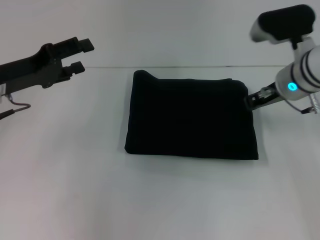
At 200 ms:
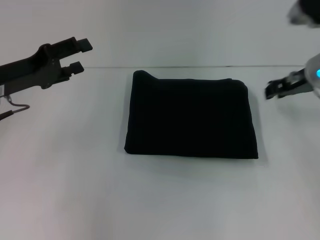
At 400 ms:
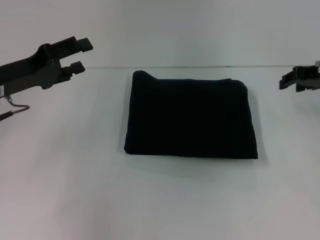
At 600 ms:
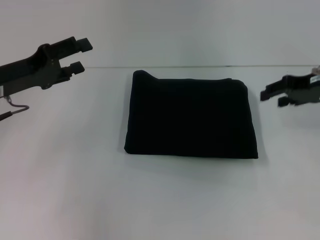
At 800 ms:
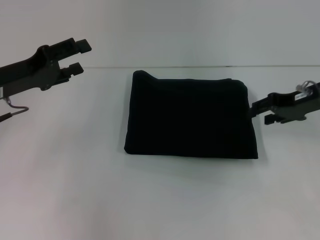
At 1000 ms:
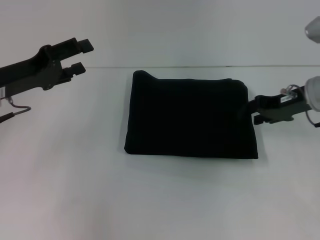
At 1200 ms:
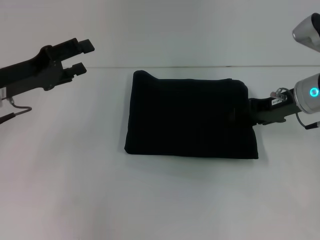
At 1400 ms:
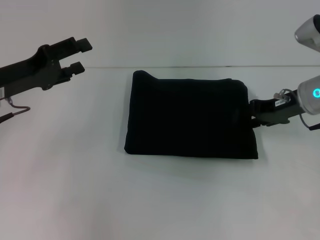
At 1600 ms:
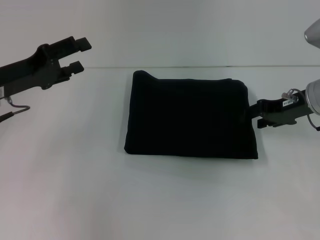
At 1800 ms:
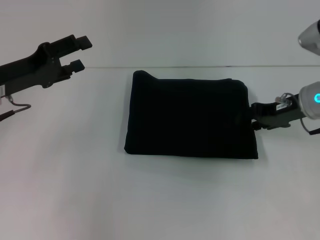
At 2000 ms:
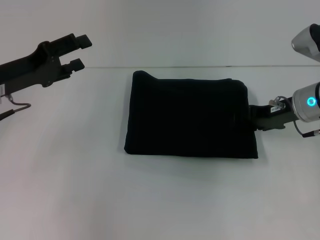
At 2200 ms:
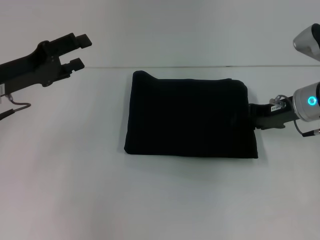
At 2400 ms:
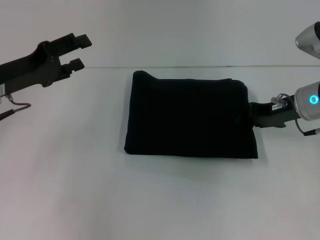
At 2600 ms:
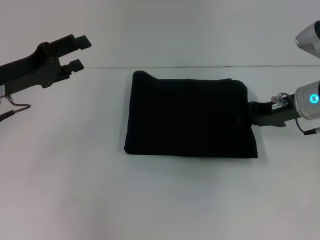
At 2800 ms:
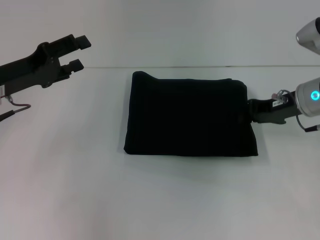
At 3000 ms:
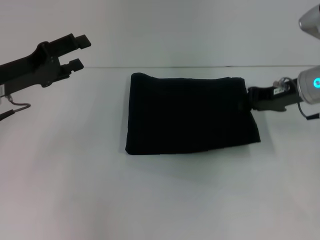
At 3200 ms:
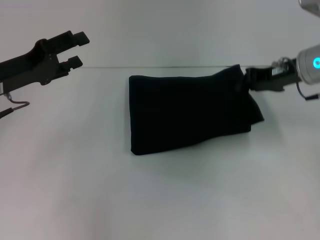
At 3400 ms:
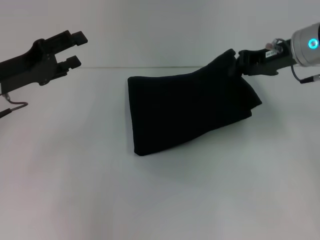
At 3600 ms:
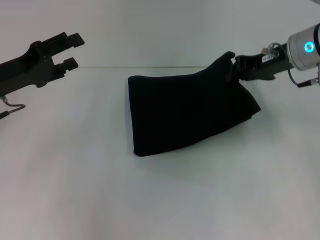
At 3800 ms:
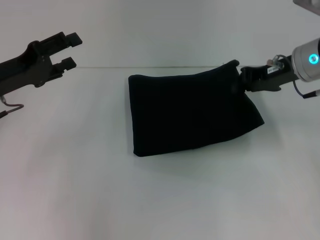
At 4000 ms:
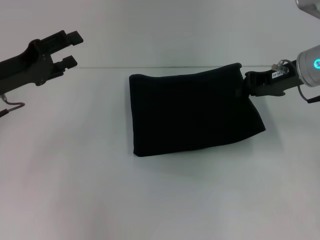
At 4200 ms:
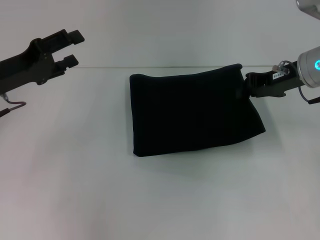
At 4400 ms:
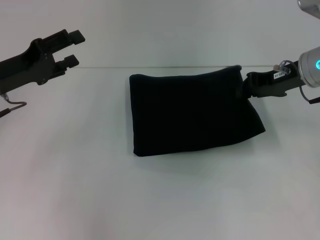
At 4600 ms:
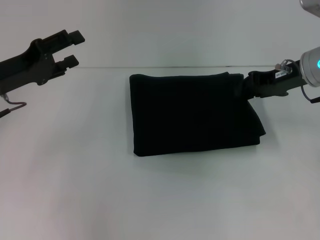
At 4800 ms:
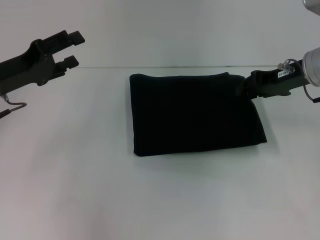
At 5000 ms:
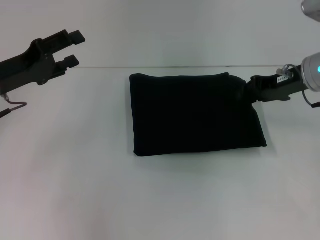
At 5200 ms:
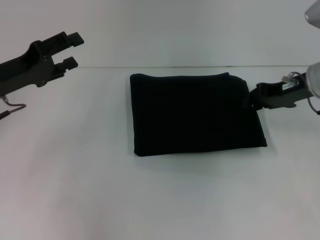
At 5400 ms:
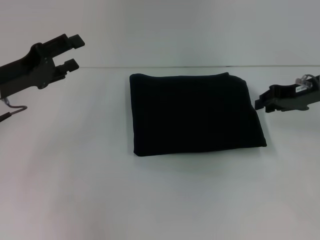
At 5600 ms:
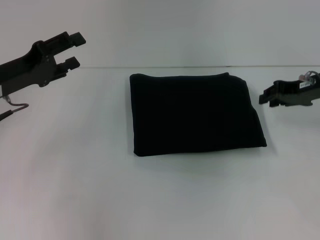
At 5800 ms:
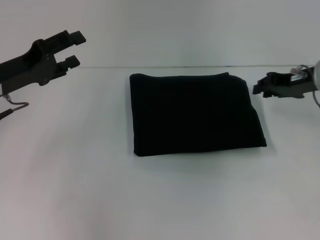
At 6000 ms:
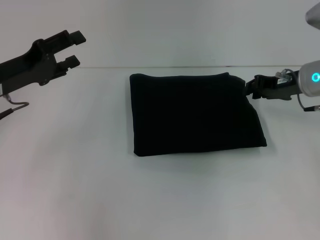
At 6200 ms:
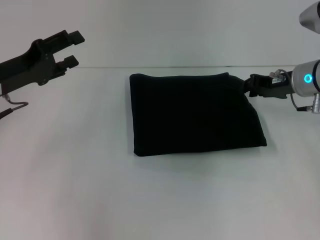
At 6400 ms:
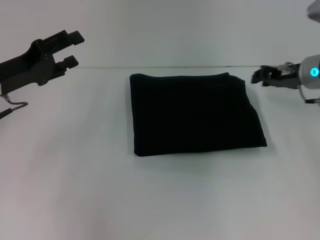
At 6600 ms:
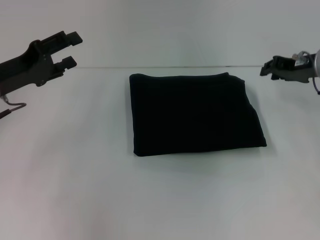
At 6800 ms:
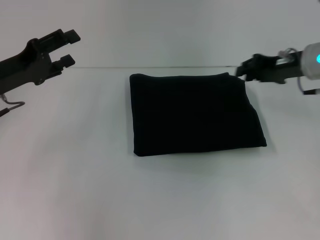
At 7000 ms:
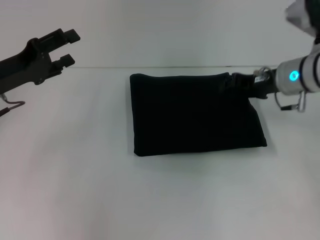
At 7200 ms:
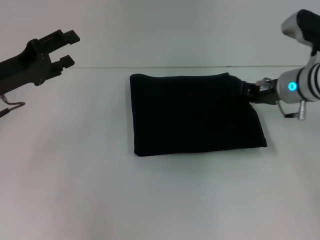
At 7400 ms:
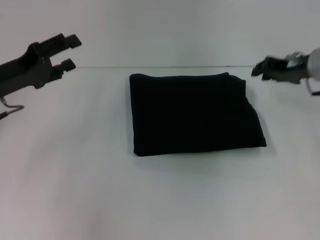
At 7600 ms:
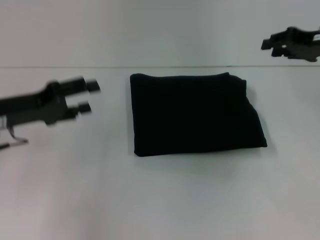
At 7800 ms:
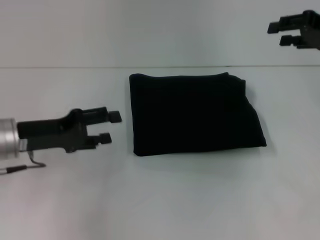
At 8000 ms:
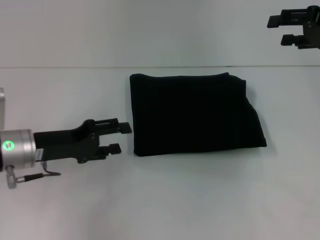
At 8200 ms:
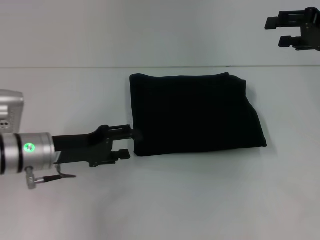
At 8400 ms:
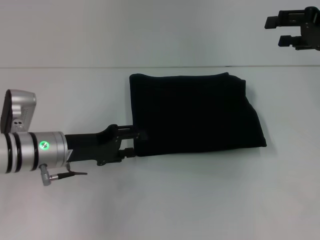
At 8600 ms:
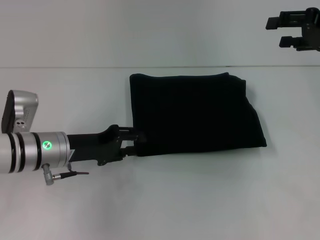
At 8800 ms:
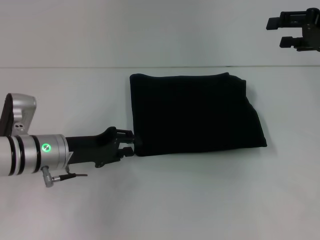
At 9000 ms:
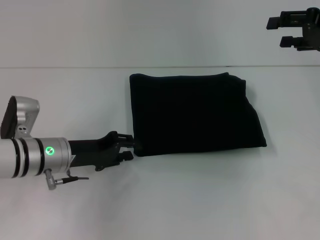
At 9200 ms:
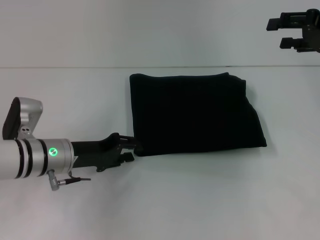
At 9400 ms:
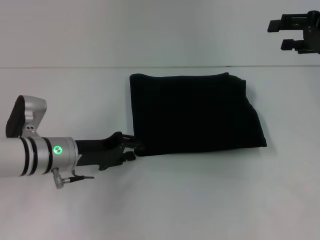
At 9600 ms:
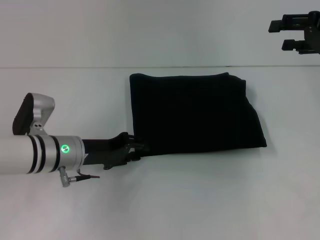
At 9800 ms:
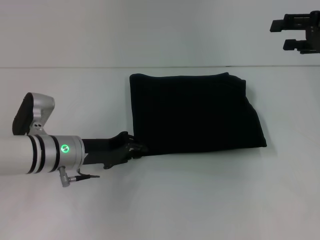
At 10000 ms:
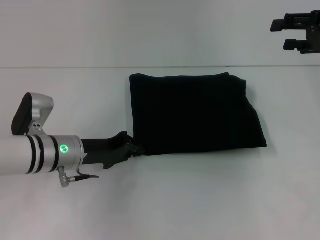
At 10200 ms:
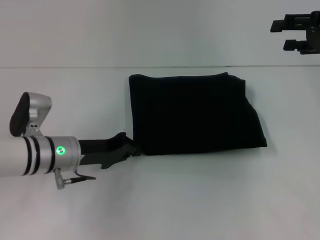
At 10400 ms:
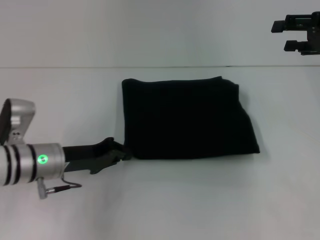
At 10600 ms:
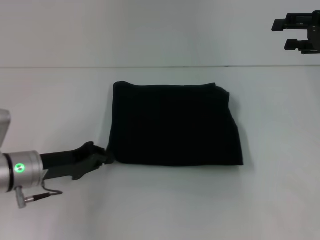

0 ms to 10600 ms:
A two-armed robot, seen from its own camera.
0 ms to 1600 ms: The right gripper travels to the right by about 5 cm, and opens.
1600 ms to 3000 ms: The right gripper closes up.
4600 ms to 6000 ms: There are only small adjustments of the grippers.
6000 ms to 7600 ms: The right gripper travels upward by some 5 cm.
7600 ms to 9000 ms: The left gripper goes about 10 cm to the right and downward, and closes its fingers. The right gripper opens its fingers.
9000 ms to 10600 ms: The left gripper closes its fingers.

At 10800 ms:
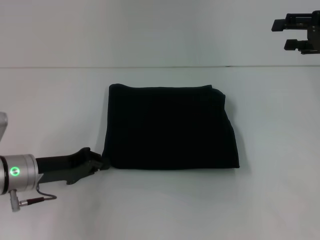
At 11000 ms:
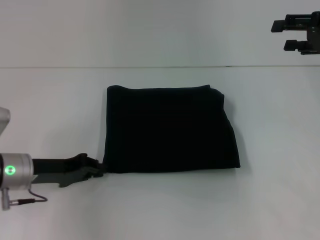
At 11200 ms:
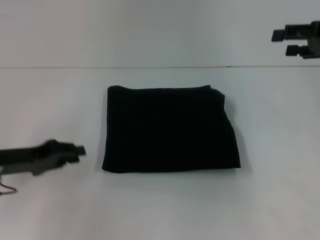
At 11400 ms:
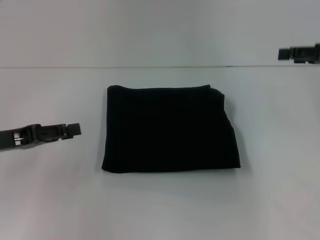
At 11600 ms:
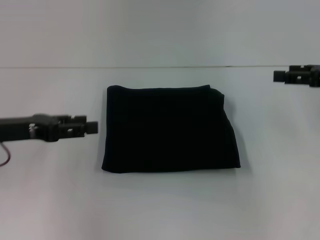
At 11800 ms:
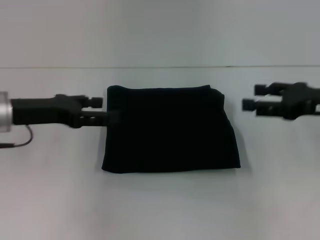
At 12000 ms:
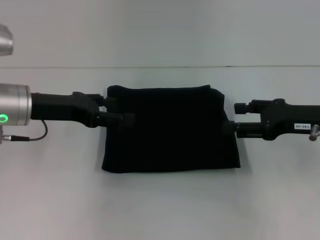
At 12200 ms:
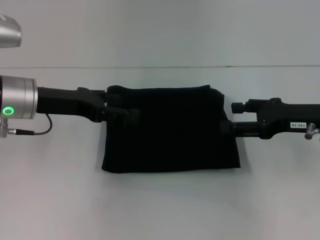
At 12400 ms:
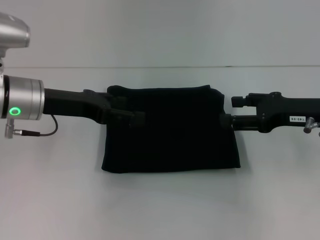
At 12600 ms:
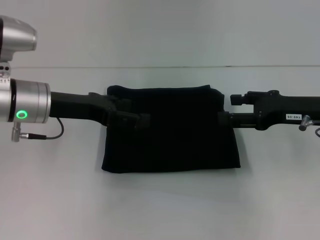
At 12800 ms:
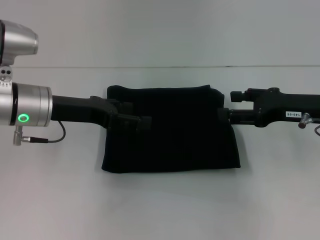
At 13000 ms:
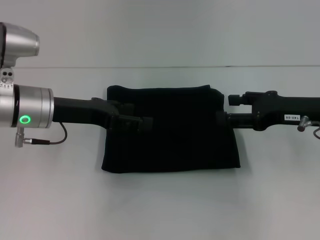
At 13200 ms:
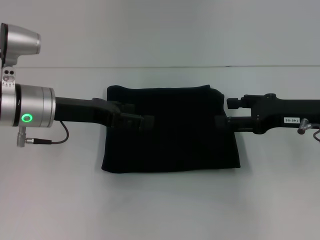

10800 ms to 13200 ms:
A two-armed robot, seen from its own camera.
10800 ms to 12000 ms: The left gripper shifts approximately 10 cm upward and forward, and opens. Meanwhile the right gripper heads downward, backward and to the left, covering about 10 cm.
12000 ms to 13200 ms: The grippers make only small movements.

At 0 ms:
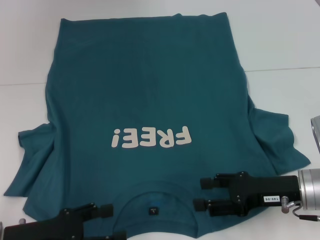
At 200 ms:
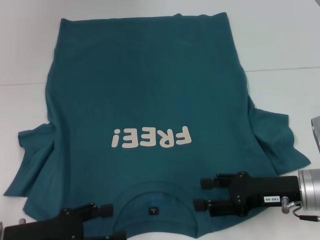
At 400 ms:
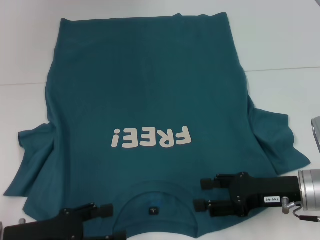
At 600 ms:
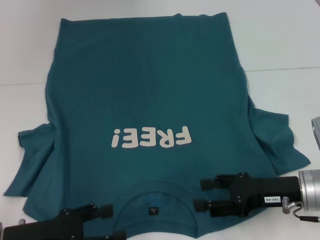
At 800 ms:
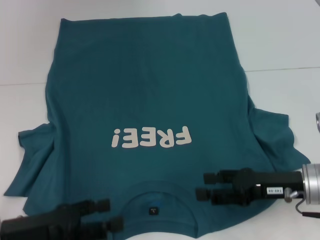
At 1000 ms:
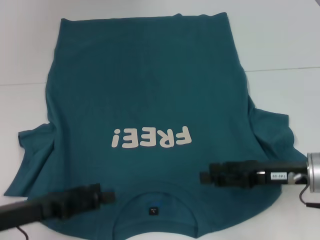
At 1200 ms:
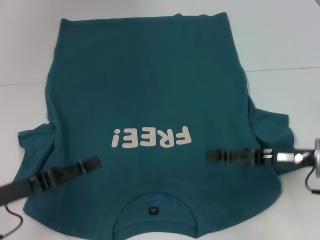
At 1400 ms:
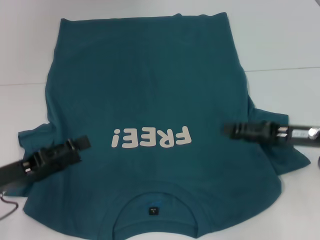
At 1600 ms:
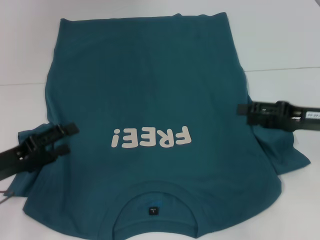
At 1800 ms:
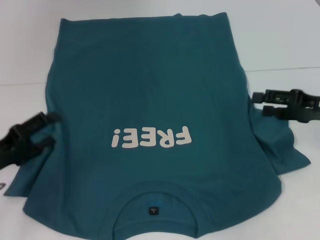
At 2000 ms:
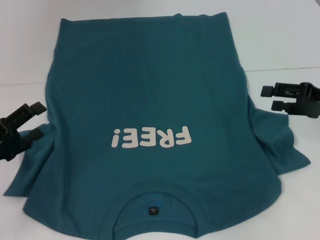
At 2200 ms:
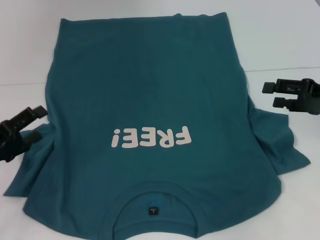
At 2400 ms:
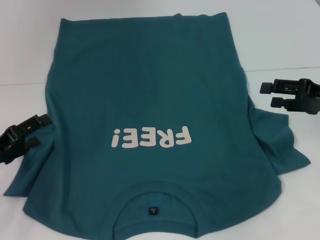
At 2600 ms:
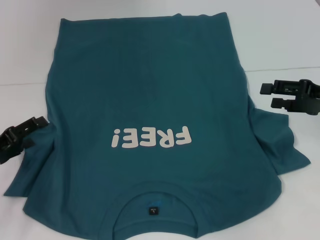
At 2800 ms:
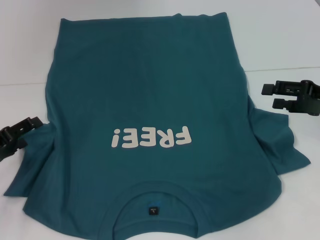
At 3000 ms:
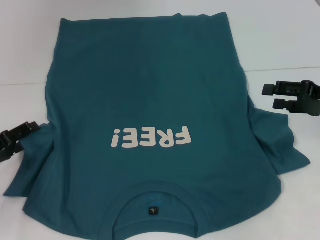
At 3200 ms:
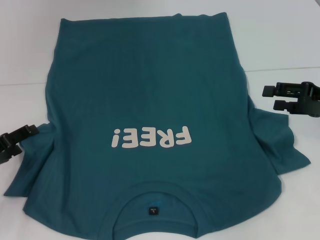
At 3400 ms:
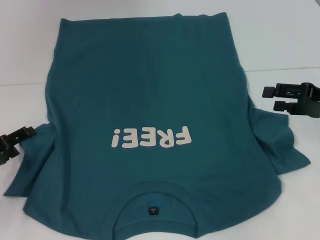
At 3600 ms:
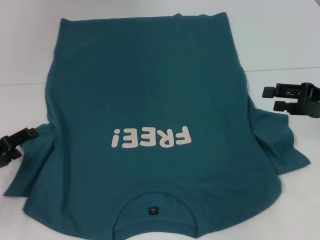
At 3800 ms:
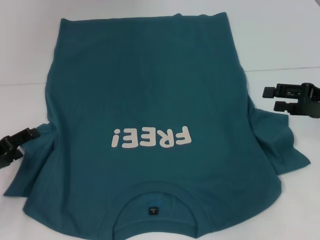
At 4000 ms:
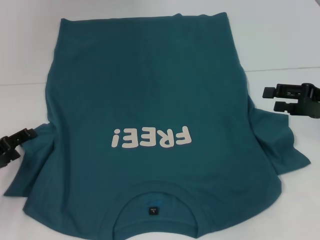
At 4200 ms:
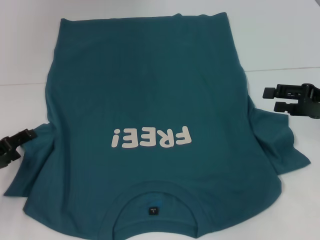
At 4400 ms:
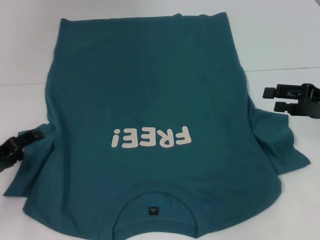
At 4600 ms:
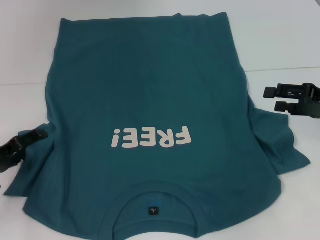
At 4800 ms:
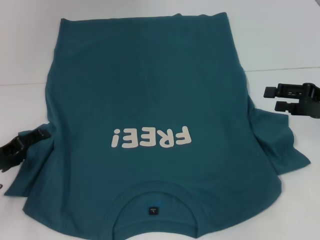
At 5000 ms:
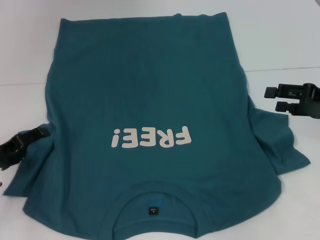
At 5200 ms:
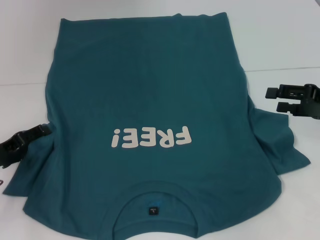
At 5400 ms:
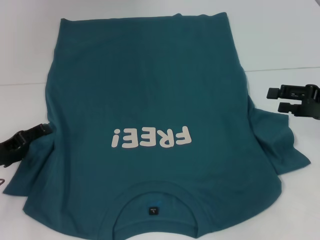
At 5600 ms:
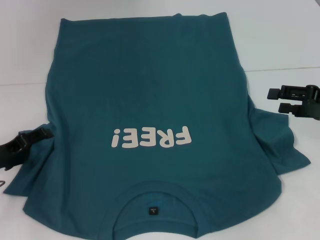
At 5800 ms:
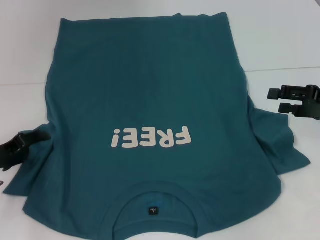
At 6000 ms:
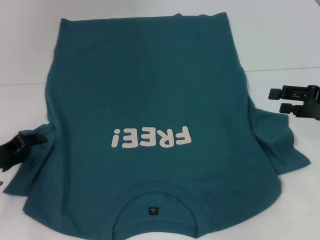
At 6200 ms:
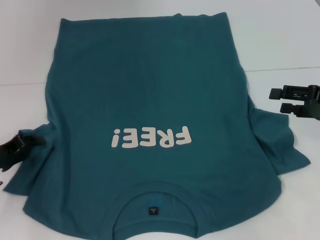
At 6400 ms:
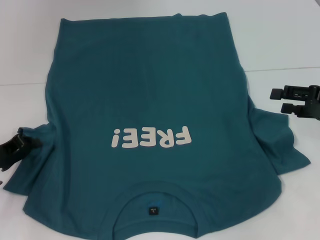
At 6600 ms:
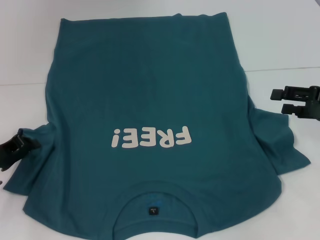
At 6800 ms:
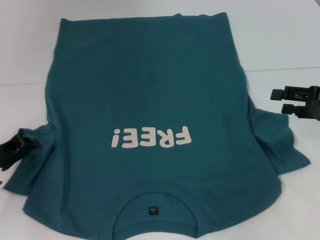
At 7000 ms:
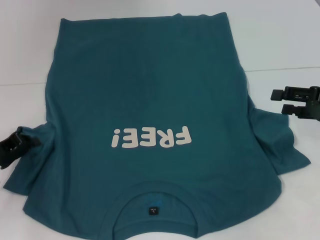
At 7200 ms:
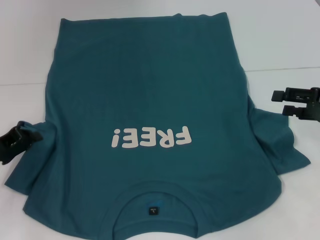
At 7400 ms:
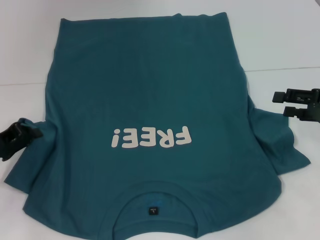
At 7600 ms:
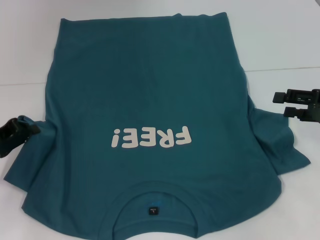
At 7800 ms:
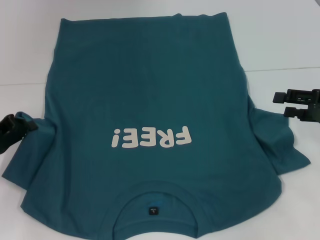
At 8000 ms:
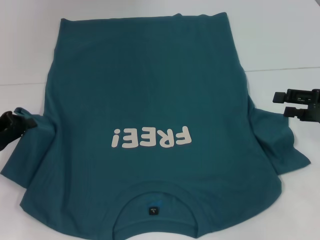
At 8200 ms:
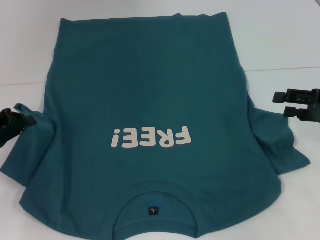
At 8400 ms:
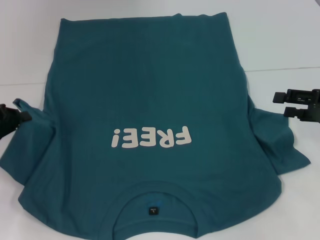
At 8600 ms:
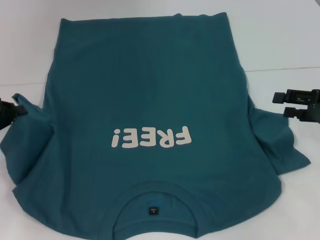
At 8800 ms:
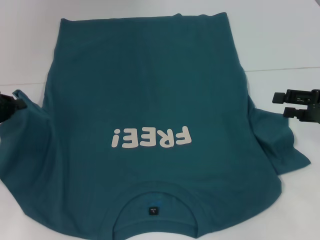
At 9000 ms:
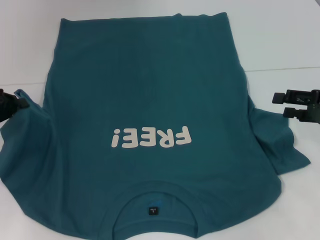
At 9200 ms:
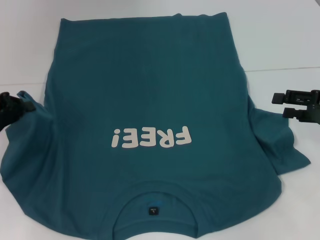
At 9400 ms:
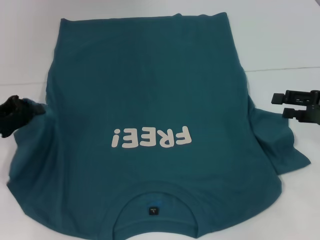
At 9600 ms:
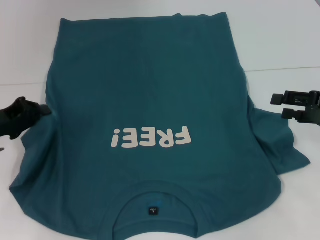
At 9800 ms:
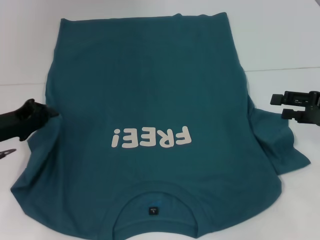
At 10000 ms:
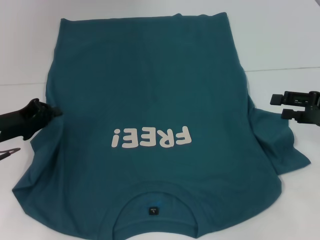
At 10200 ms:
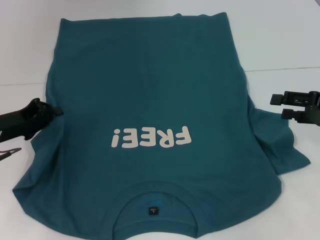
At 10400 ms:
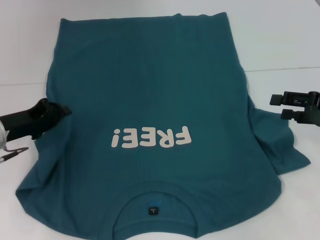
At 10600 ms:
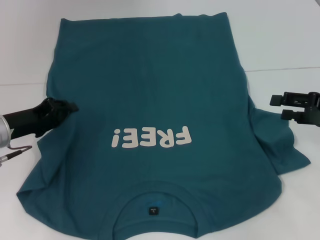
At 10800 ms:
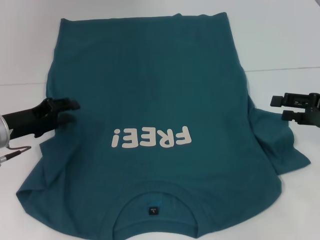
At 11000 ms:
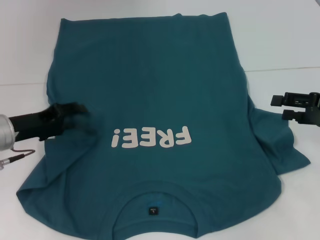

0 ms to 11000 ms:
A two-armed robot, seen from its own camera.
0 ms to 1600 ms: The left gripper shifts approximately 5 cm forward, while the right gripper moves to the right, forward and upward, roughly 10 cm.
1600 ms to 3200 ms: The left gripper shifts by approximately 5 cm.
3200 ms to 4800 ms: The grippers make only small movements.
4800 ms to 6200 ms: The left gripper closes.
6200 ms to 7800 ms: The left gripper closes up.
7800 ms to 9400 ms: There are only small adjustments of the grippers.
9400 ms to 11000 ms: The left gripper goes roughly 5 cm to the right, and opens up.
